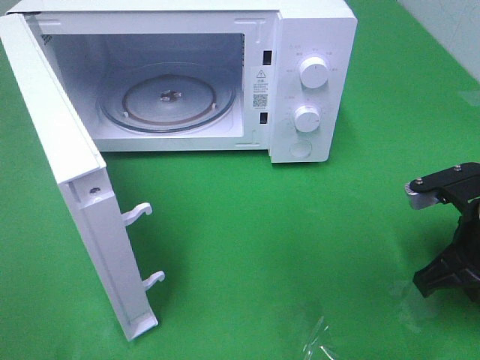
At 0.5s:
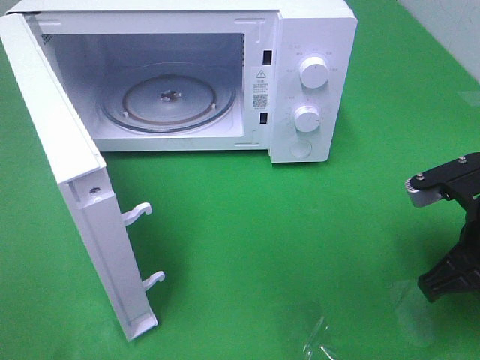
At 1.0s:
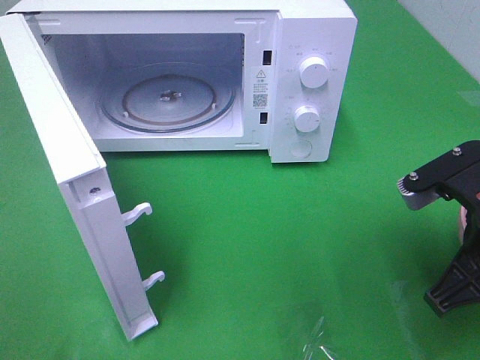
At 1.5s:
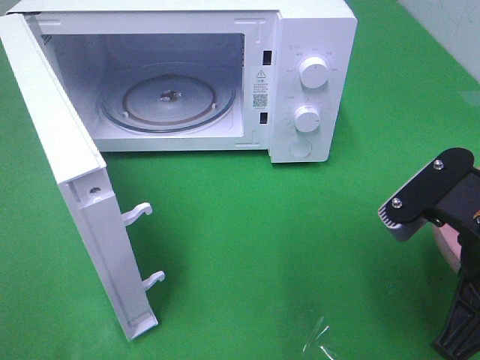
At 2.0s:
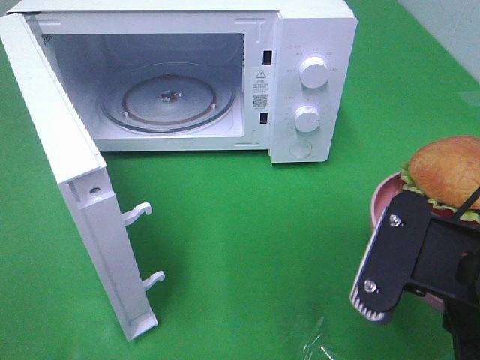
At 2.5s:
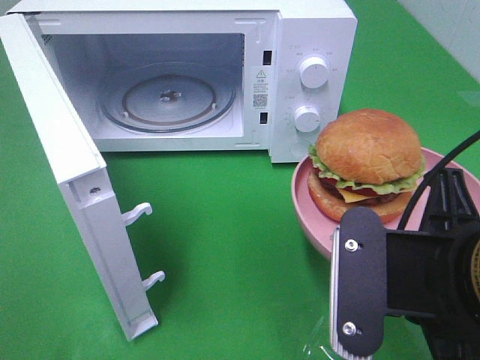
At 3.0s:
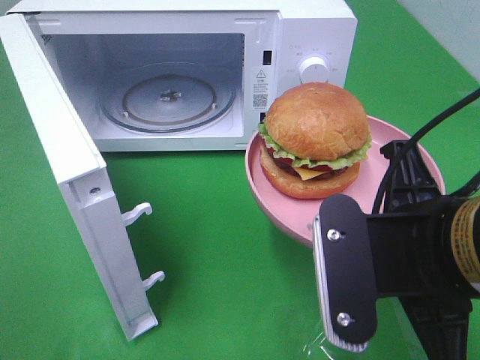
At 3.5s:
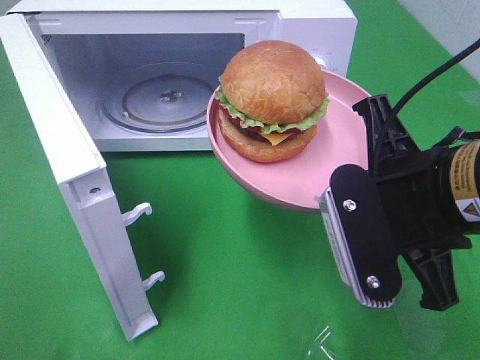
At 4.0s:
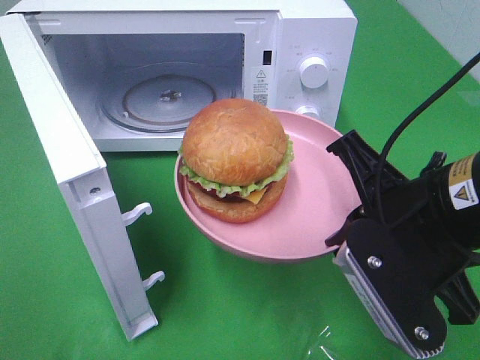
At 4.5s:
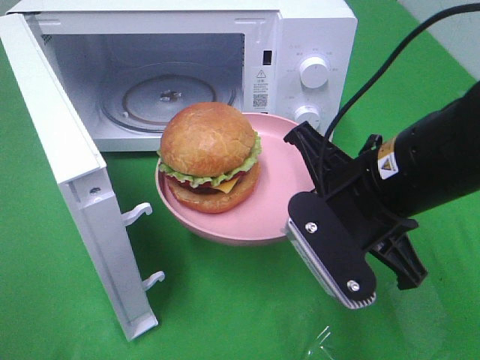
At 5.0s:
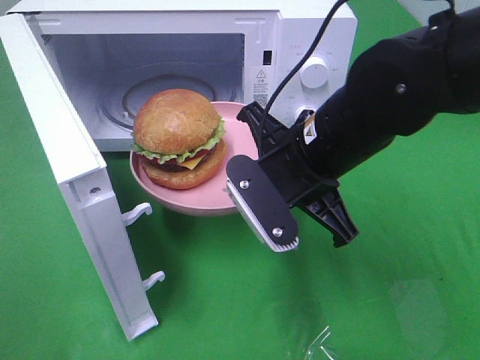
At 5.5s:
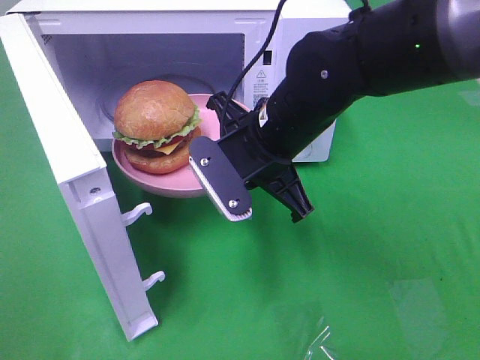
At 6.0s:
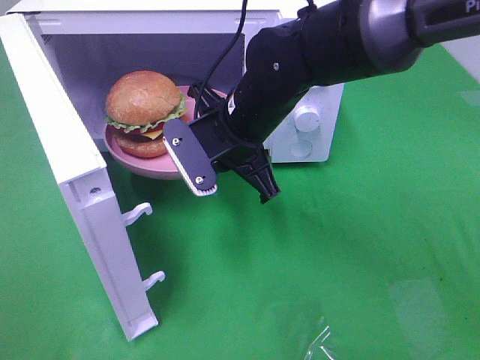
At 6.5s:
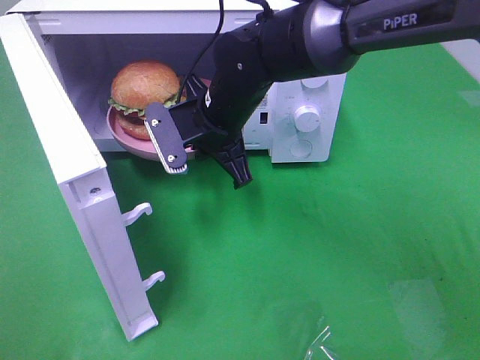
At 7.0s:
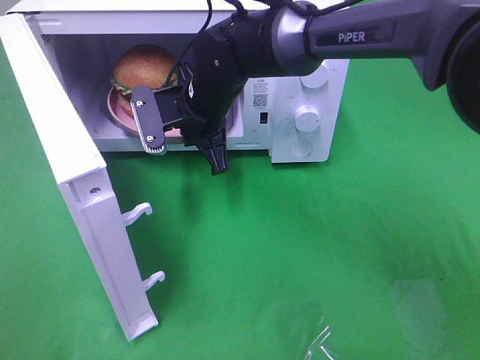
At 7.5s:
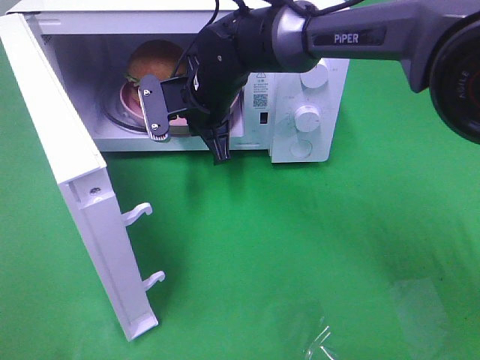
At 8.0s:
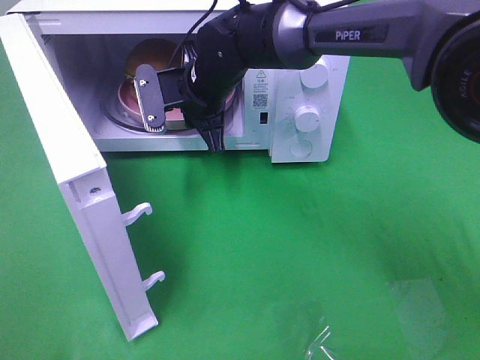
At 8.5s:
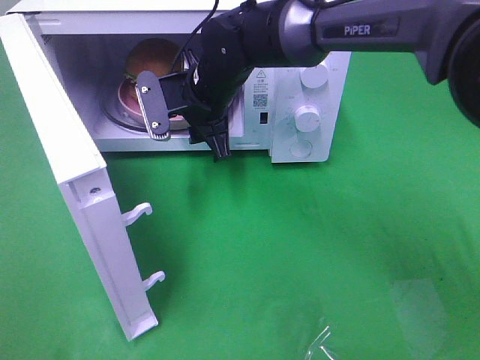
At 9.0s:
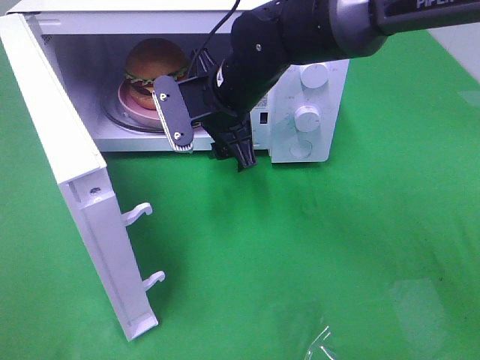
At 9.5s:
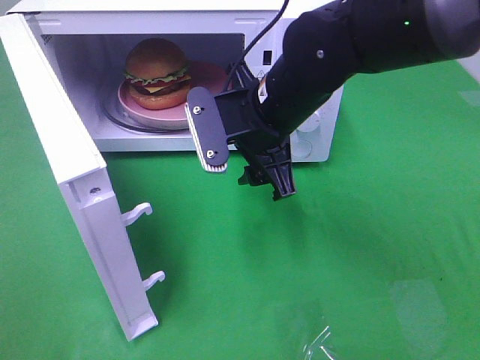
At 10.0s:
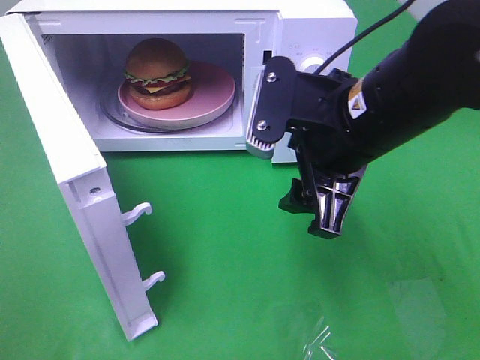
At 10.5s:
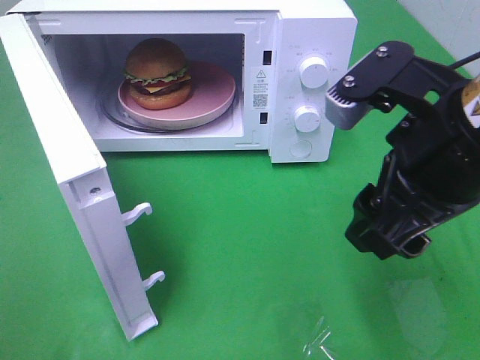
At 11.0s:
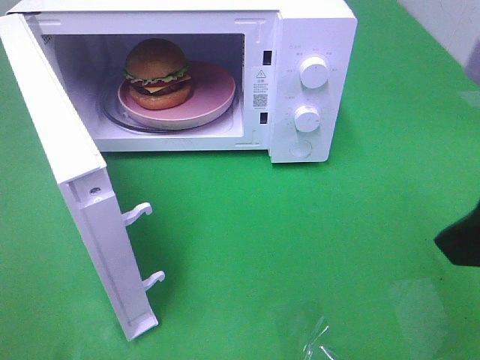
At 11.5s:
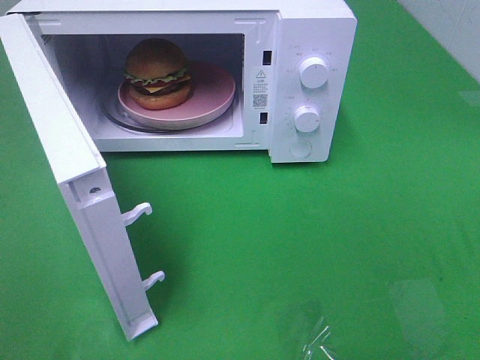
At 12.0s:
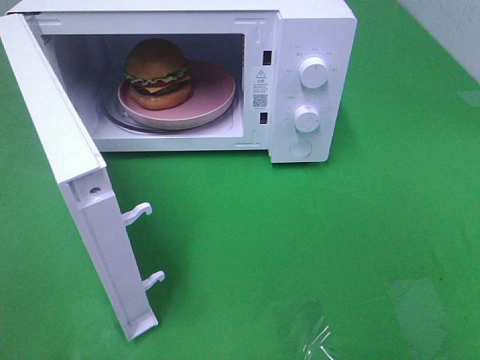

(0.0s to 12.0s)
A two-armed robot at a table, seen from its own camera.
Task of the whole recording: Heat the burger.
Step, 0.0s - 9.0s: Right hand: place the plate in the microwave.
0.0s - 2.0s: The right gripper shifts roughly 15 cm backward, to the left and upward.
2.0s - 4.0s: The right gripper moves forward, roughly 5 cm.
4.0s - 6.0s: The right gripper goes about 20 cm forward and to the left.
6.0s - 8.0s: The right gripper heads forward, covering roughly 10 cm.
8.0s - 10.0s: The right gripper travels backward and to the right by roughly 25 cm, and opens.
10.0s - 12.0s: The right gripper moves backward and to the right, some 30 cm.

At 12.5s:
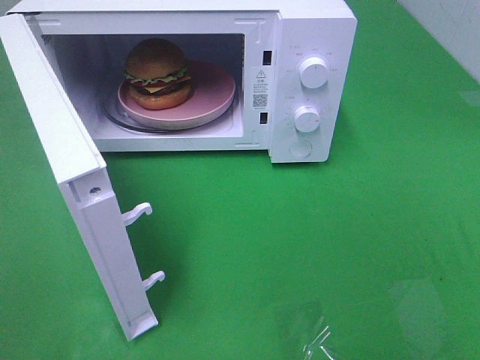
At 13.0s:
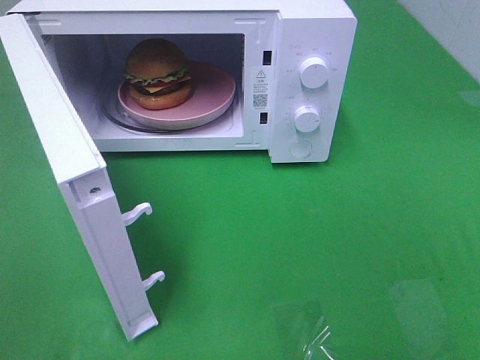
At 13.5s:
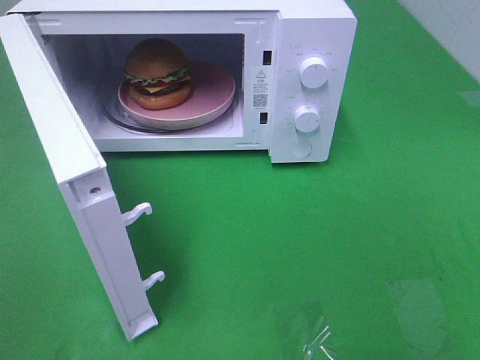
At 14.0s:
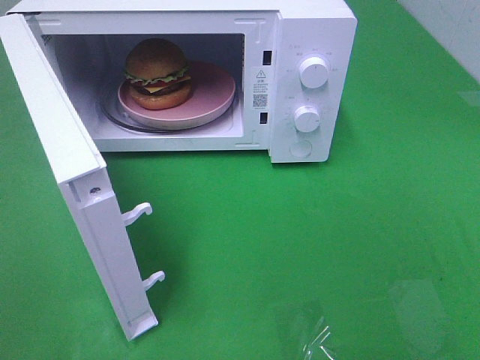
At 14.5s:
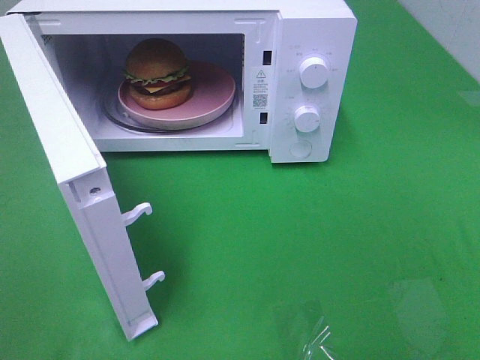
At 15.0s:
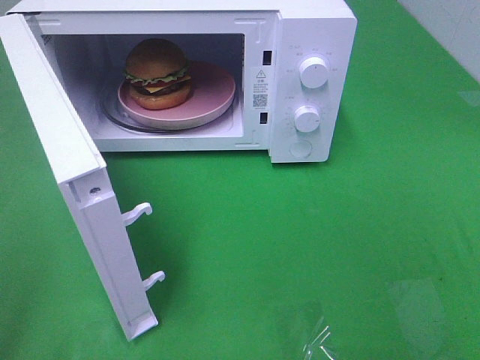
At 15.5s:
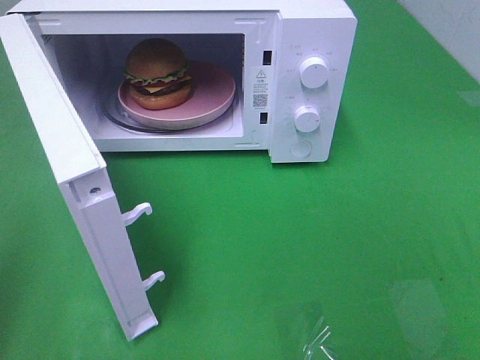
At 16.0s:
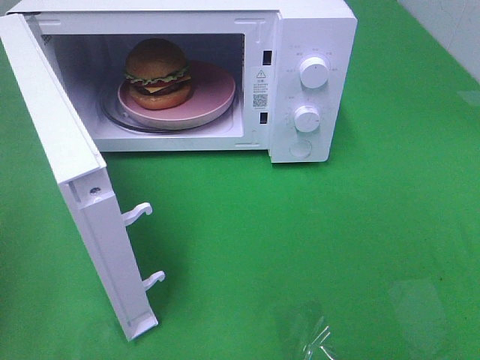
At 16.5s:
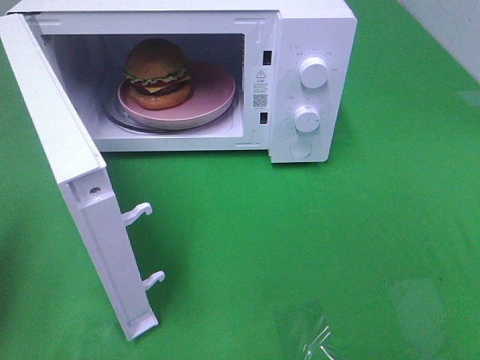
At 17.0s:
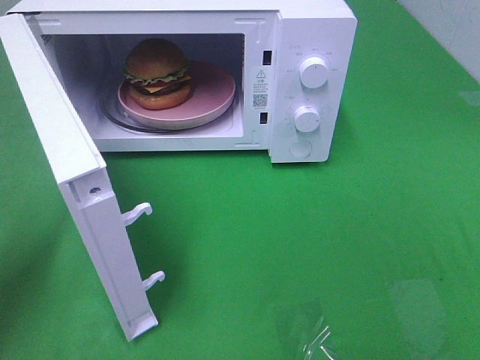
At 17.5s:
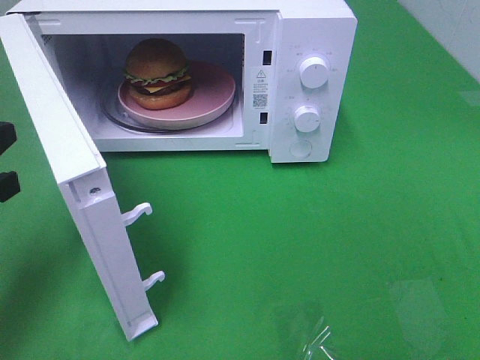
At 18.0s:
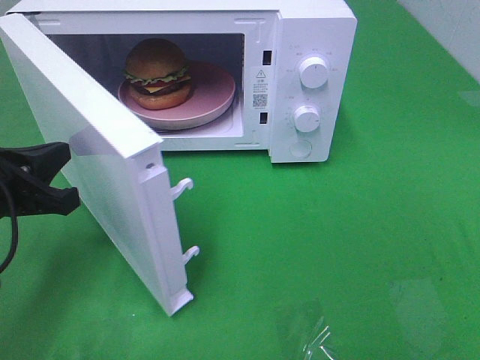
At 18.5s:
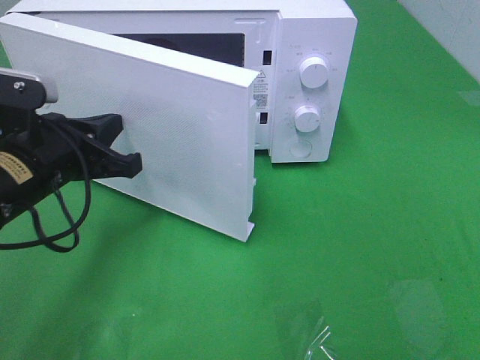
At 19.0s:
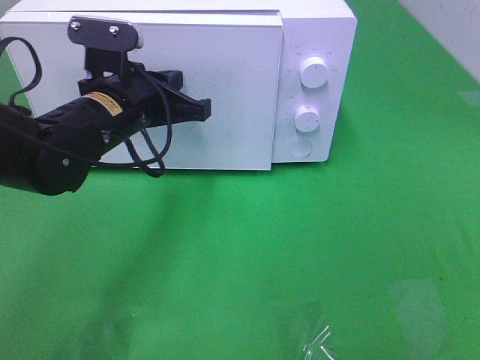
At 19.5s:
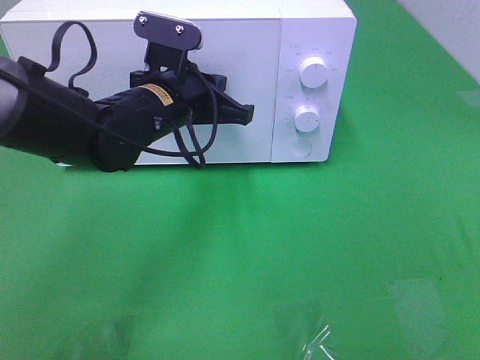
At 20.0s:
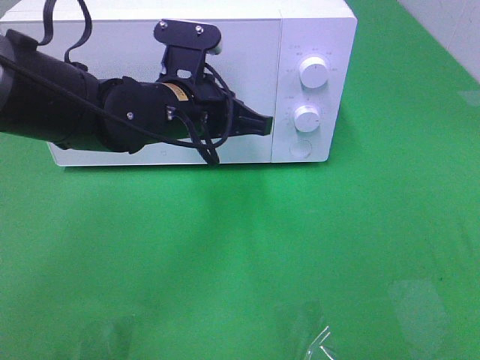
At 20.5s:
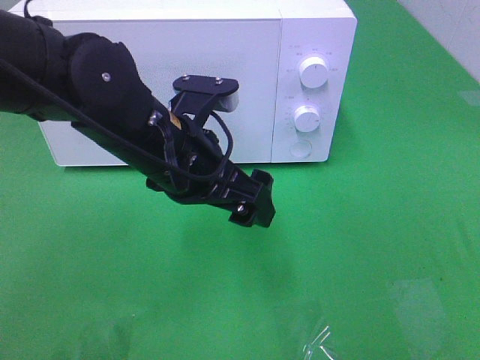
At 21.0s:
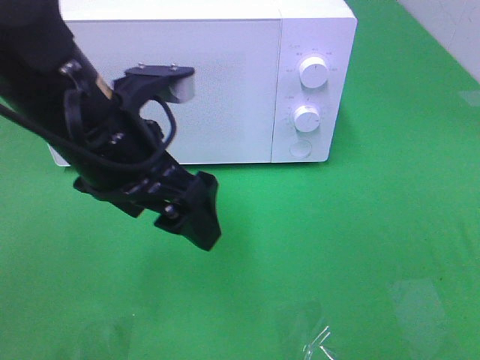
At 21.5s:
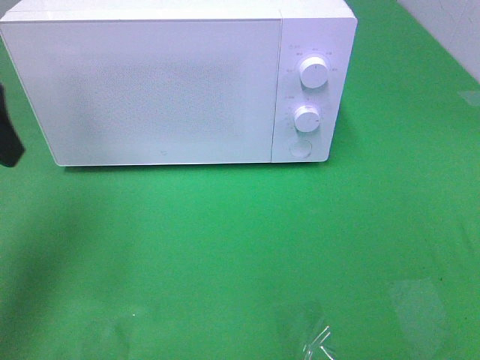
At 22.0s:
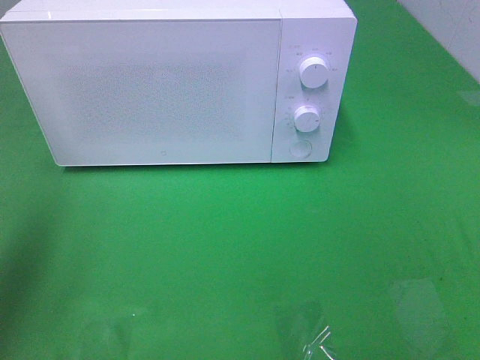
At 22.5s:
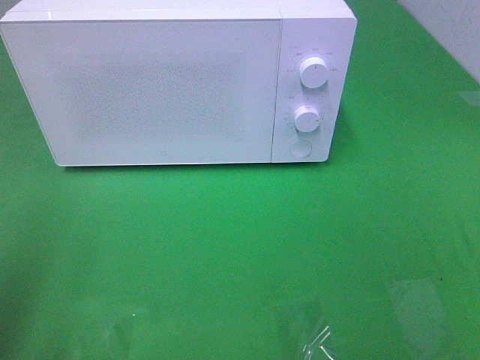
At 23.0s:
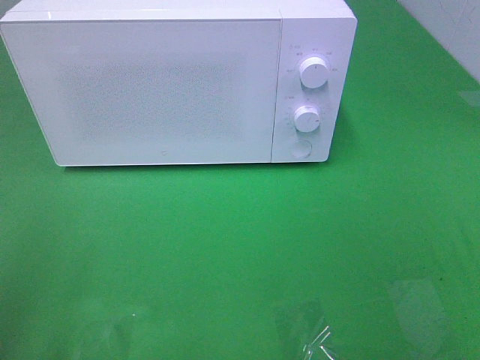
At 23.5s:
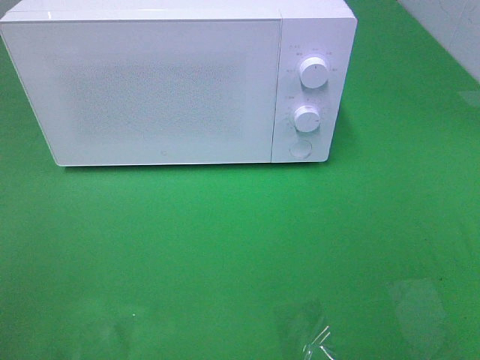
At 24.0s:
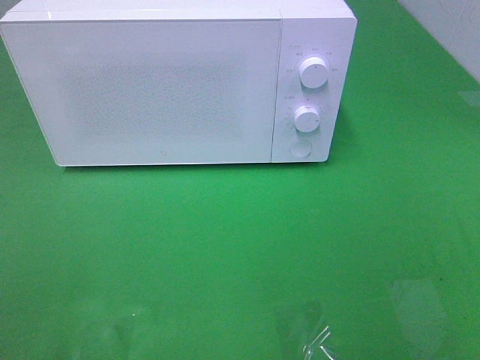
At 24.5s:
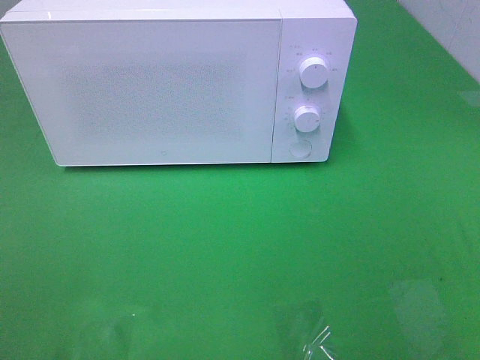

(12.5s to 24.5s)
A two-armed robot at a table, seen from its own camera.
Task of the whole recording: Heat the burger.
Step, 12.5s - 20.0s: Left hand: close the microwave door.
12.5s - 14.5s: Both grippers stay about where they are.
14.5s - 16.5s: The left gripper is displaced forward by approximately 15 cm, and closes its fingers.
16.5s - 18.5s: The left gripper heads to the right, forward and downward, covering roughly 20 cm.
18.5s - 20.5s: The left gripper shifts some 10 cm to the right, and opens up.
20.5s - 22.5s: The left gripper shifts about 30 cm to the left, backward and upward.

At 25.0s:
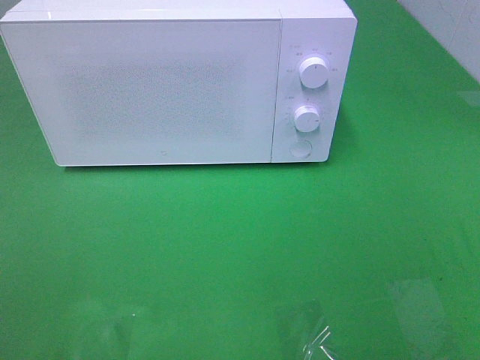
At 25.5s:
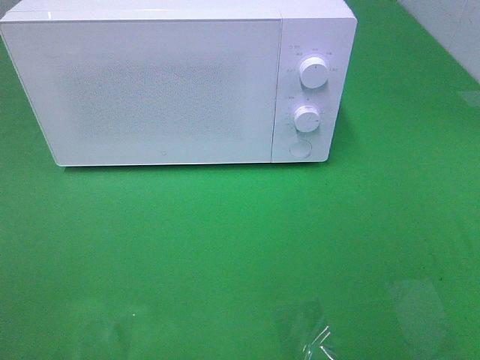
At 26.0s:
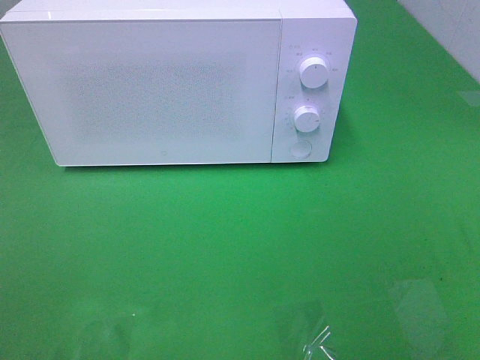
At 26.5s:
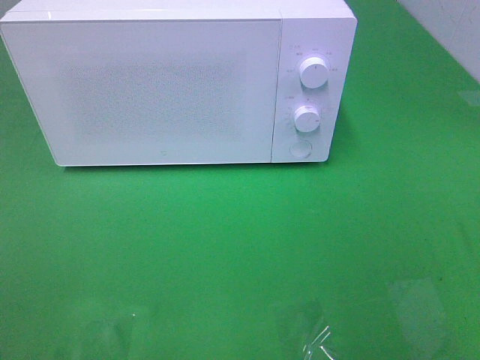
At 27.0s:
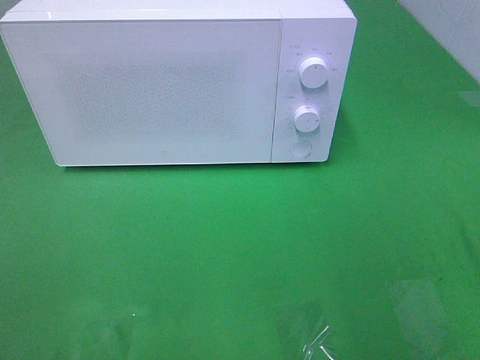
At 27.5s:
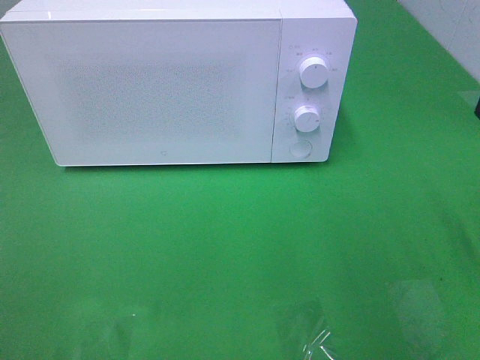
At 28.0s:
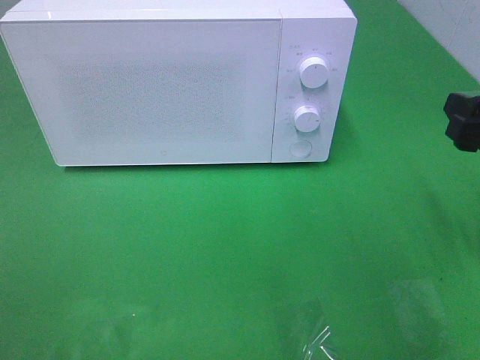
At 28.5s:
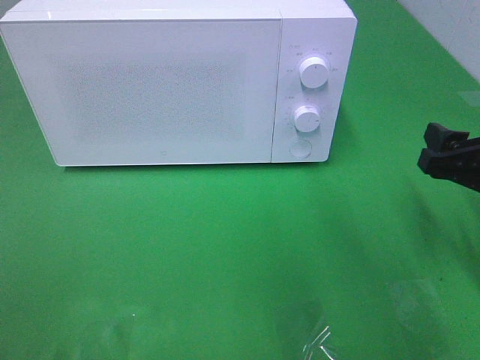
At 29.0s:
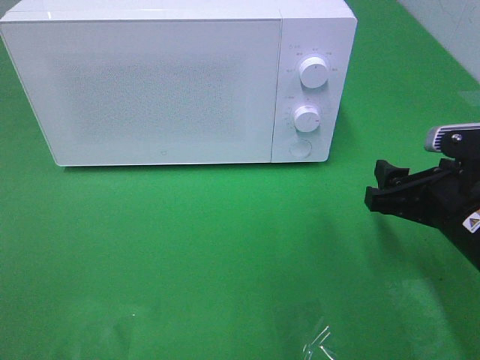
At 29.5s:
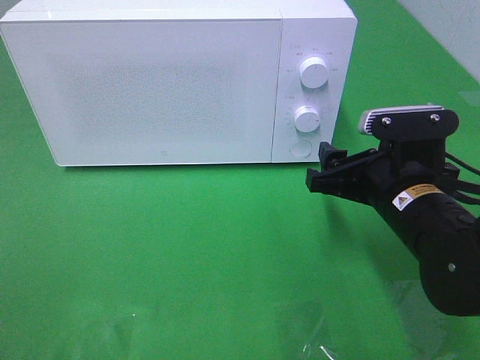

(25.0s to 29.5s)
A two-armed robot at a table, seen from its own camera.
Task of the whole recording: Heat the burger.
27.0s - 29.5s: The right gripper goes roughly 20 cm downward, forward and to the left.
